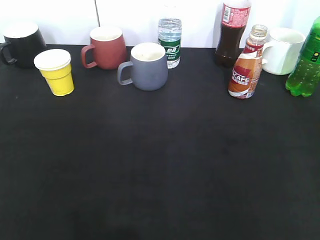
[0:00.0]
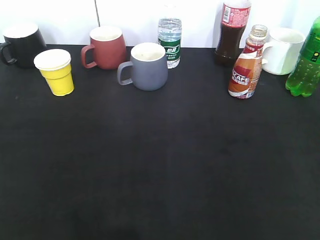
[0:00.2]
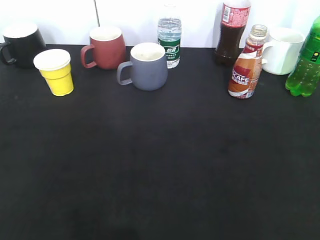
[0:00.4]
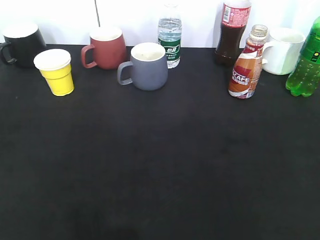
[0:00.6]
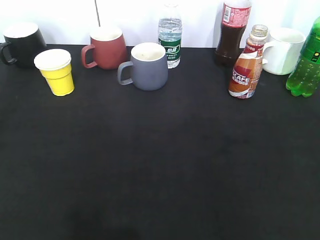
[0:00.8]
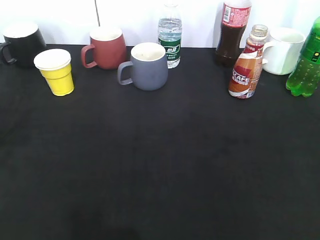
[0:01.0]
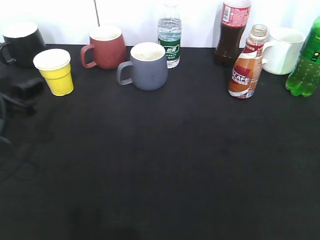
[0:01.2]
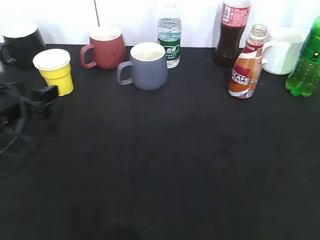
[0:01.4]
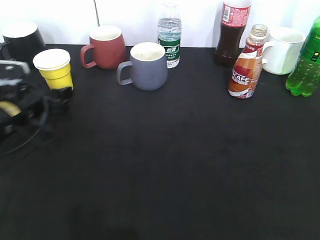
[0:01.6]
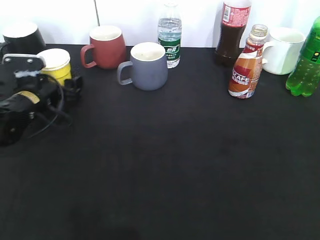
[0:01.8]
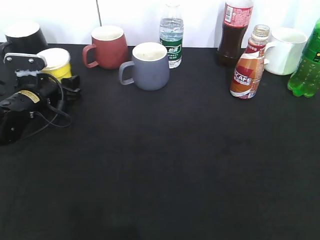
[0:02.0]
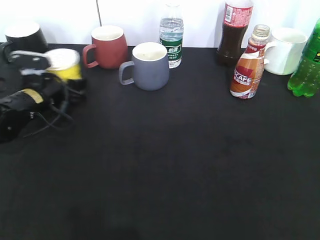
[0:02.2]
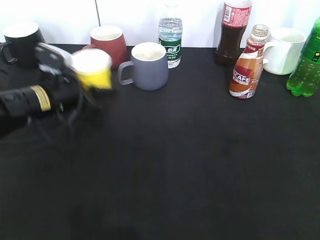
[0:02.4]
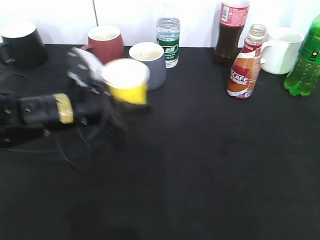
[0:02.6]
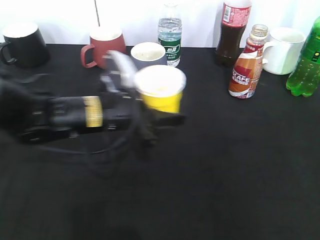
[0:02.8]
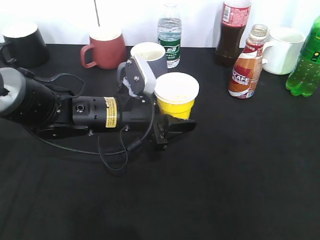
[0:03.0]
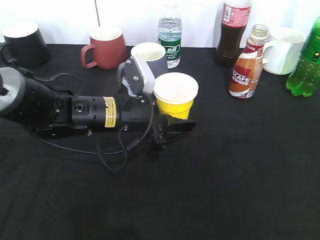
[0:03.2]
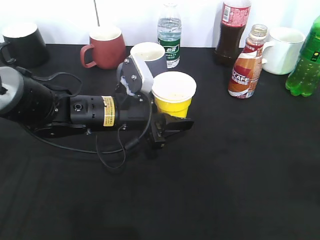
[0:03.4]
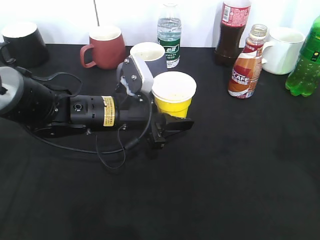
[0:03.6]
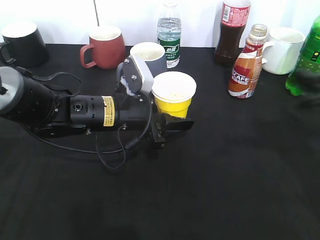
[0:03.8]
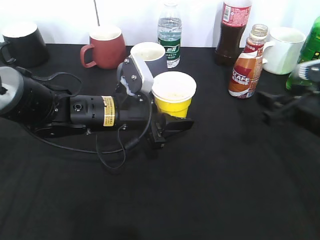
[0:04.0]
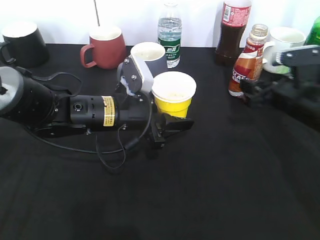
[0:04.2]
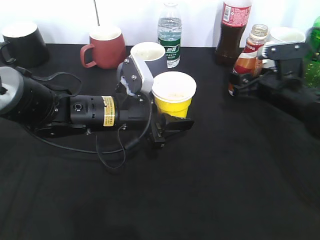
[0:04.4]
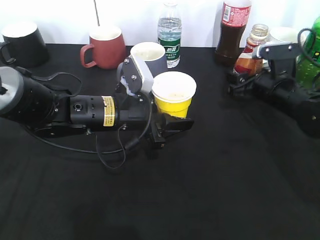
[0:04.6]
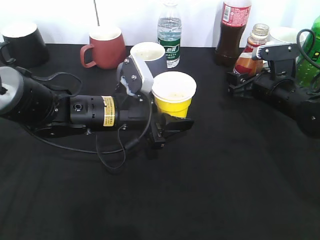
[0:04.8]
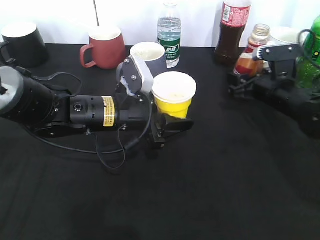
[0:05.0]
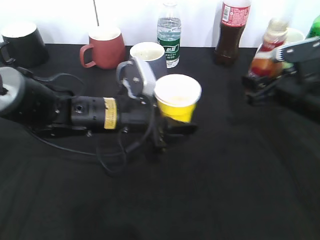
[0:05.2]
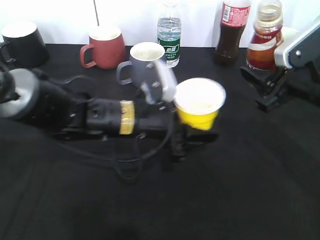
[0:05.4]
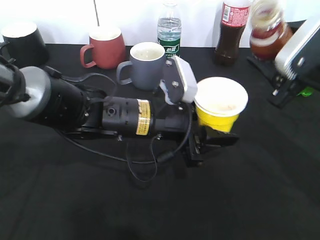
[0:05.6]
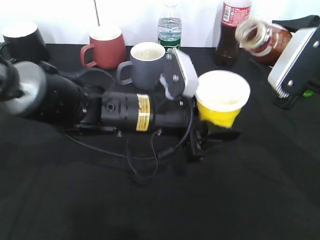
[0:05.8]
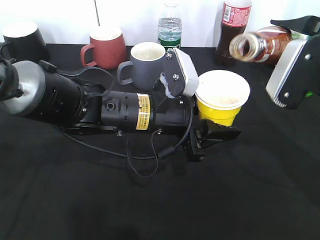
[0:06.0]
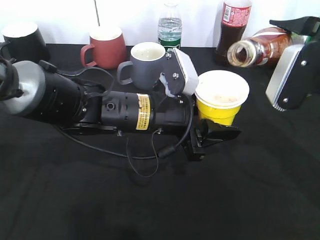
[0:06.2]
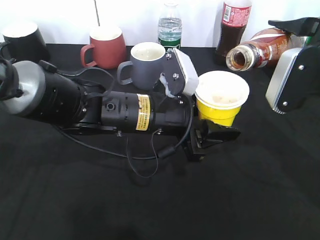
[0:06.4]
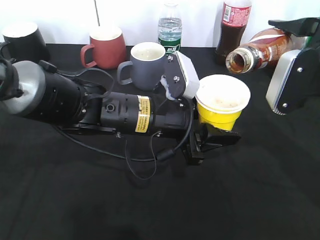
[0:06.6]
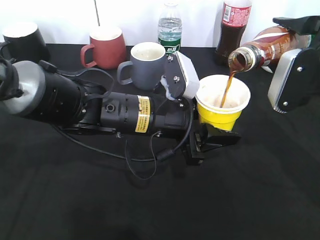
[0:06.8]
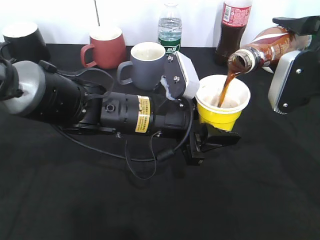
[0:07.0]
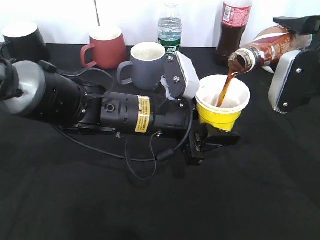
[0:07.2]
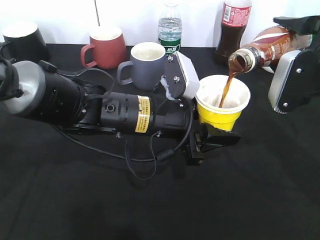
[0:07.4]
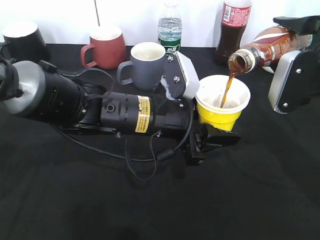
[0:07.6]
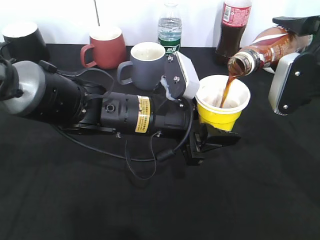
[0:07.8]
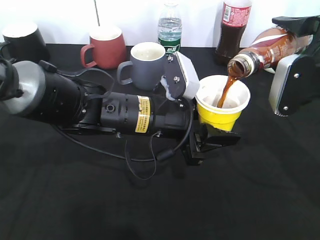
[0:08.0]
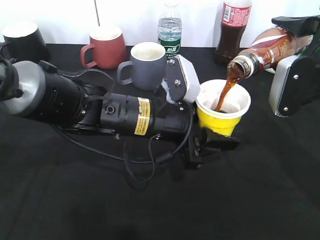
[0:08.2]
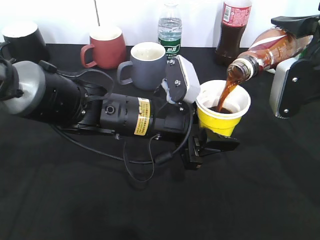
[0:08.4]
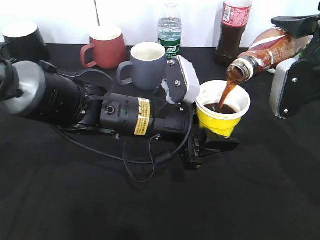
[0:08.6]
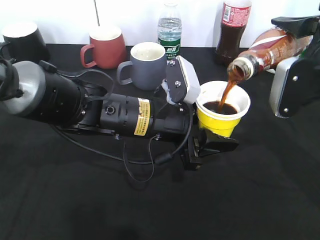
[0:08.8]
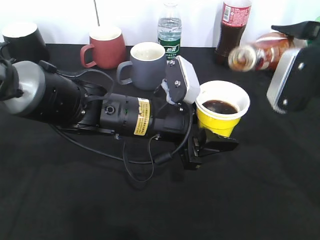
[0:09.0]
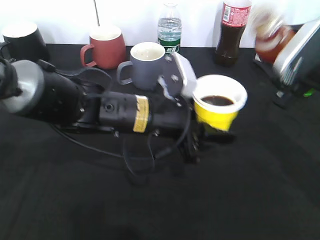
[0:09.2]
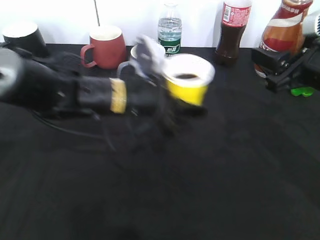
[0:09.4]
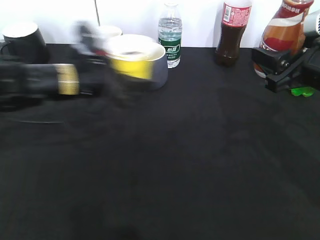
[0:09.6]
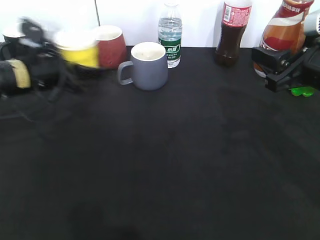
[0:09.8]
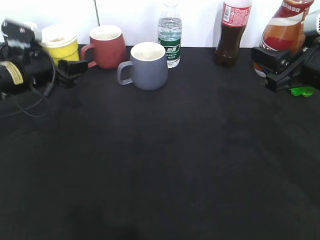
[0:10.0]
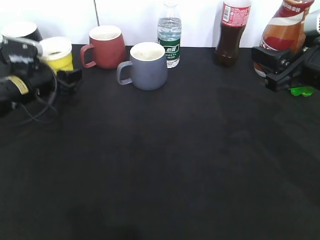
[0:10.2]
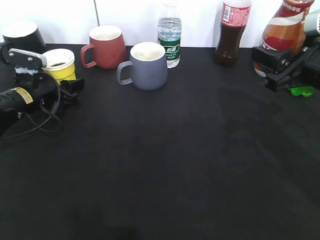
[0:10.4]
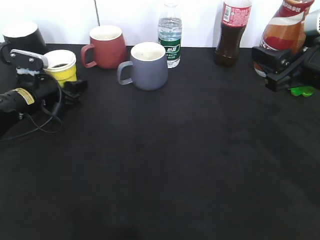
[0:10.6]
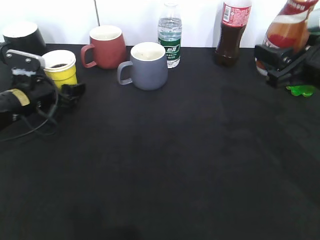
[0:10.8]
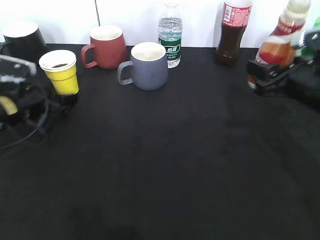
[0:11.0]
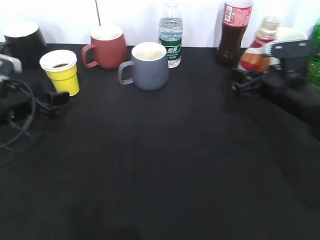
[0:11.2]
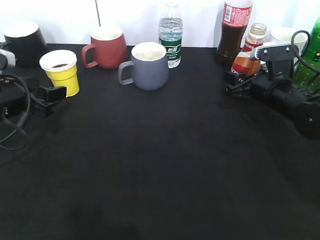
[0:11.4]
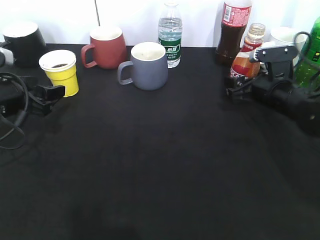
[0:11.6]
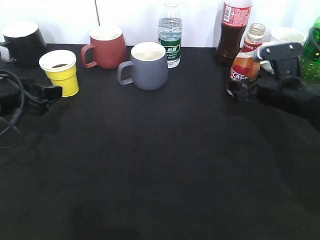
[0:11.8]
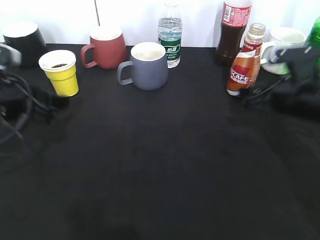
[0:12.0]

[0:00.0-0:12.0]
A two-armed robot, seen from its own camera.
Step, 1.2 to 2.0 s: Grasp the yellow paper cup with left gripper.
Step, 2.2 to 3.6 s: Lift the yellow paper cup with left gripper.
Step, 3.8 to 4.8 s: Grasp the bottle with coffee with right gripper.
Step, 5.0 to 9.0 s: Pour the coffee from bottle to cup with right gripper.
Step, 9.2 to 10.6 s: Place the yellow paper cup on the table with left gripper.
Step, 10.8 to 11.4 s: Place the coffee bottle on the table with right gripper.
0.0 to 1.6 s: The left gripper goes about 40 cm forward and downward, and opens.
1.6 to 3.0 s: The left gripper heads to the right, covering about 20 cm, and closes.
3.0 to 4.4 s: The right gripper travels forward and downward by about 40 cm.
4.4 to 6.0 s: The left gripper is displaced to the right by roughly 5 cm, while the right gripper moves upward and backward, about 15 cm.
6.0 to 7.6 s: The grippers move only a little.
7.6 to 9.0 s: The grippers move only a little.
9.0 to 10.4 s: The left gripper goes approximately 25 cm to the left and forward.
10.4 to 12.0 s: The left gripper moves backward and upward, roughly 15 cm, and opens; the right gripper travels downward by approximately 10 cm.

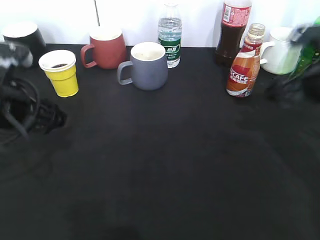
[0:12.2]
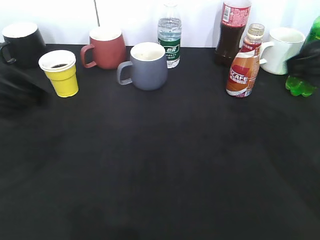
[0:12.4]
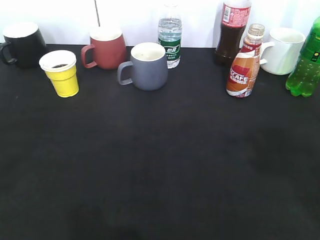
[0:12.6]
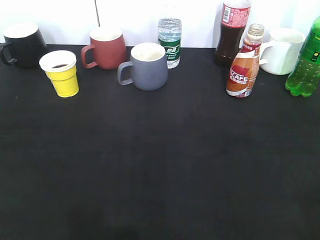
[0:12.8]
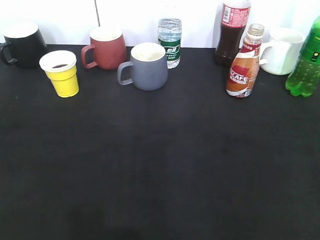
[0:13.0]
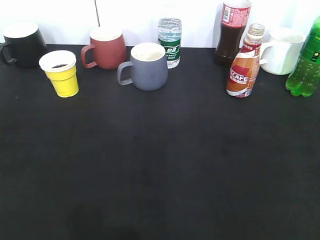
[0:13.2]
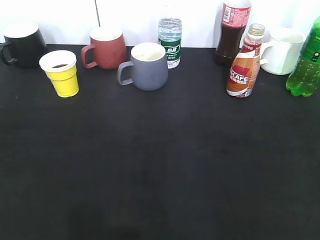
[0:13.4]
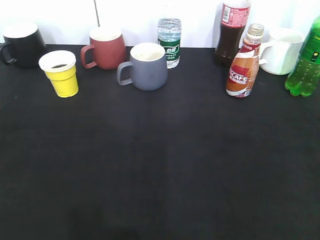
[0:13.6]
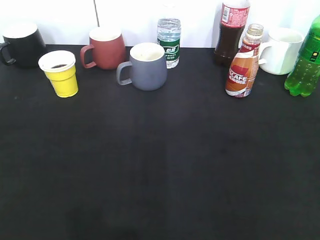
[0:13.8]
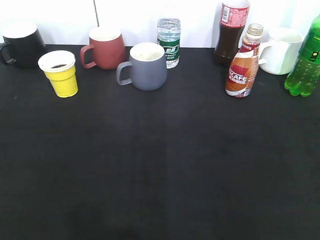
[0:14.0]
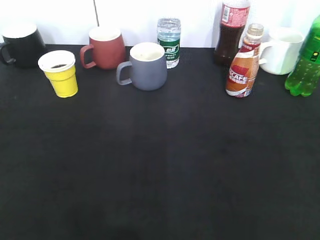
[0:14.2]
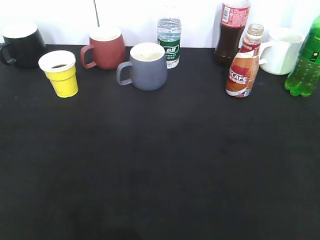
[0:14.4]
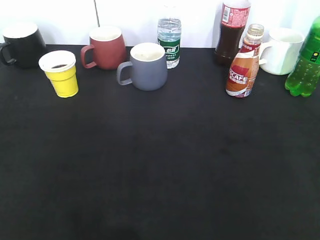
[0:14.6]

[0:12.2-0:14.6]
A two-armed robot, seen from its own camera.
12.2 to 13.4 s: The right gripper moves backward, about 30 cm. The left gripper shifts about 25 cm backward and to the left.

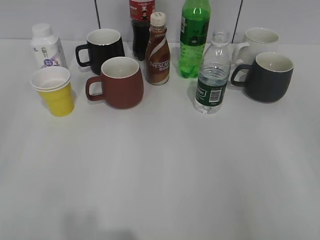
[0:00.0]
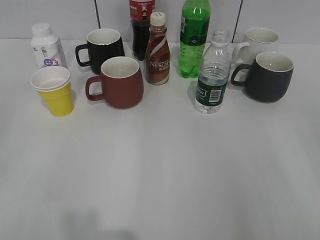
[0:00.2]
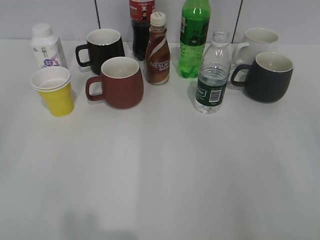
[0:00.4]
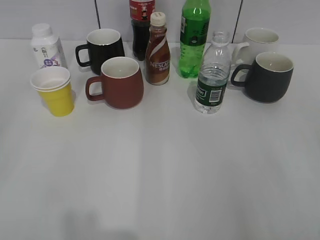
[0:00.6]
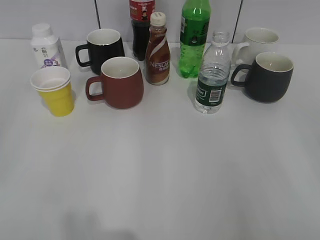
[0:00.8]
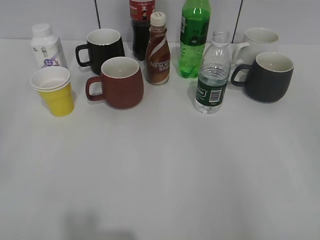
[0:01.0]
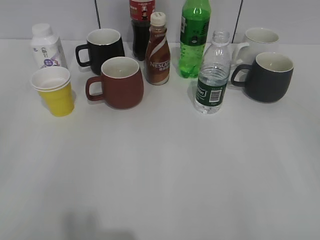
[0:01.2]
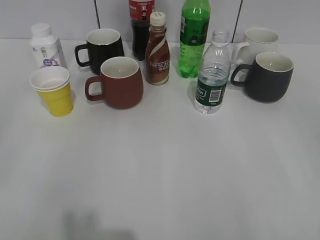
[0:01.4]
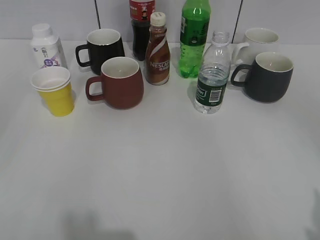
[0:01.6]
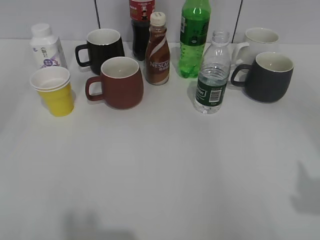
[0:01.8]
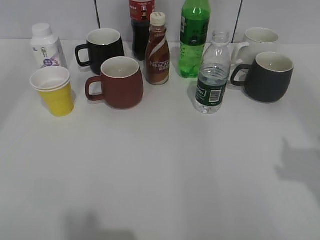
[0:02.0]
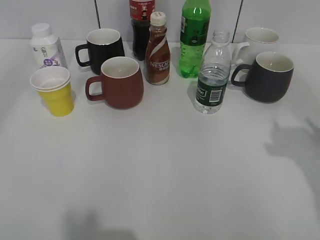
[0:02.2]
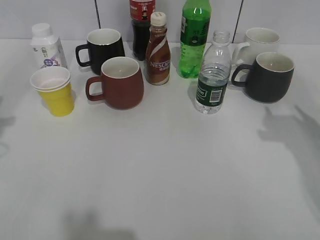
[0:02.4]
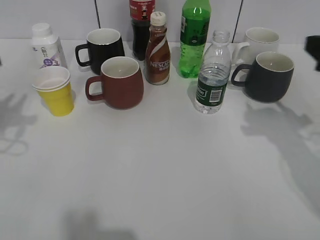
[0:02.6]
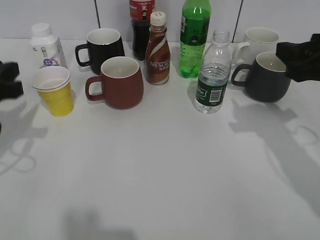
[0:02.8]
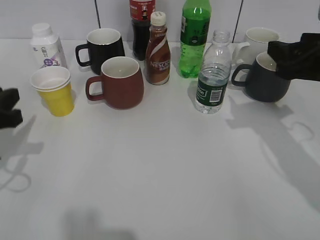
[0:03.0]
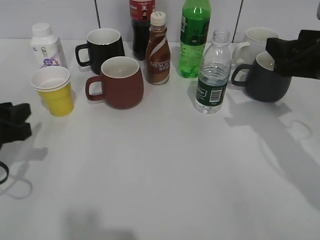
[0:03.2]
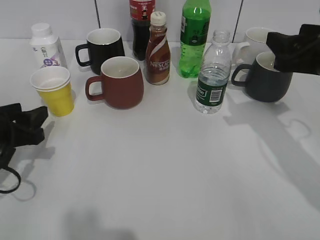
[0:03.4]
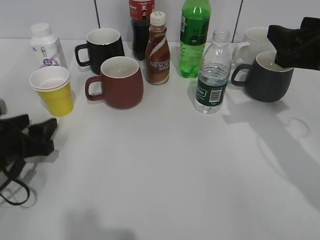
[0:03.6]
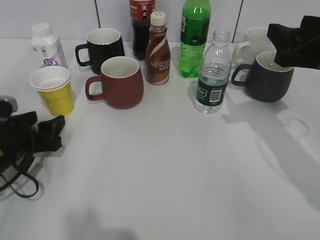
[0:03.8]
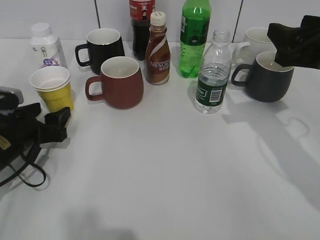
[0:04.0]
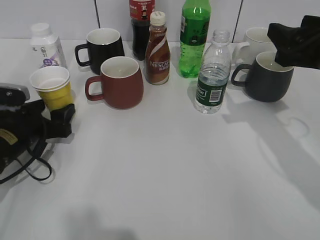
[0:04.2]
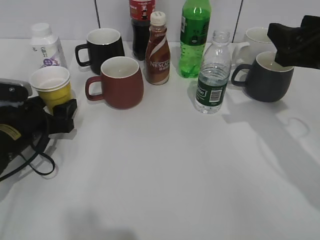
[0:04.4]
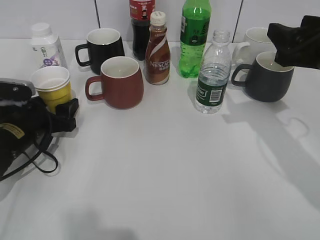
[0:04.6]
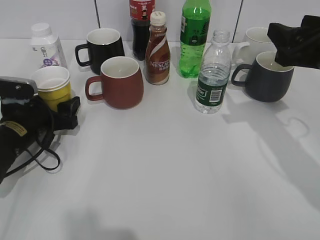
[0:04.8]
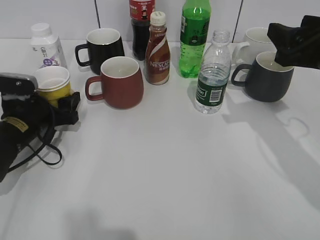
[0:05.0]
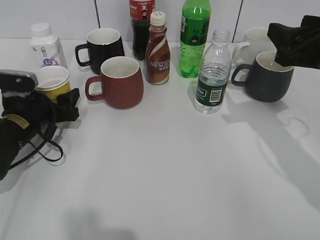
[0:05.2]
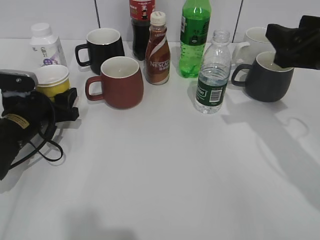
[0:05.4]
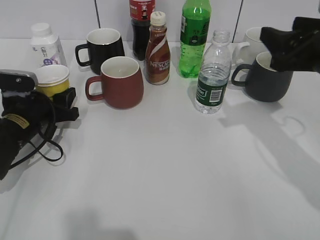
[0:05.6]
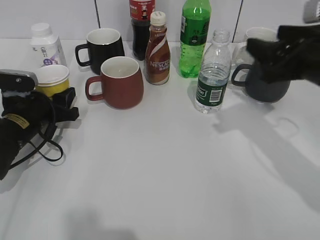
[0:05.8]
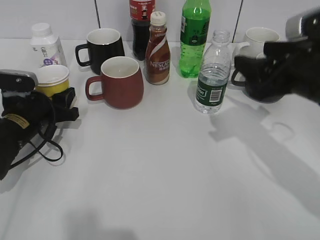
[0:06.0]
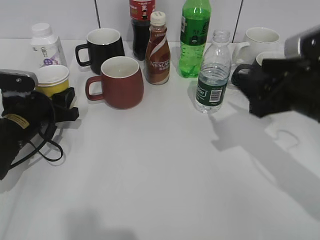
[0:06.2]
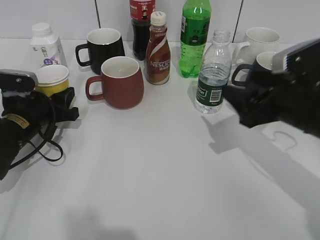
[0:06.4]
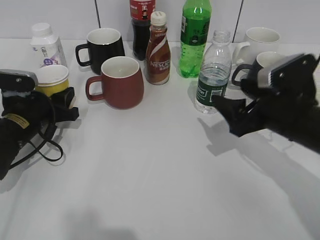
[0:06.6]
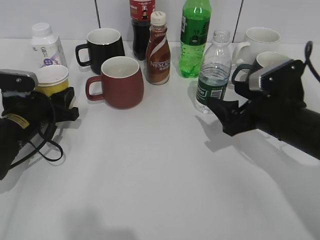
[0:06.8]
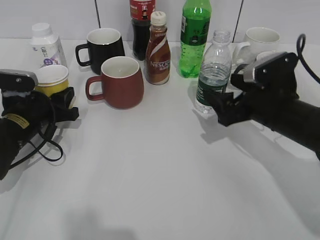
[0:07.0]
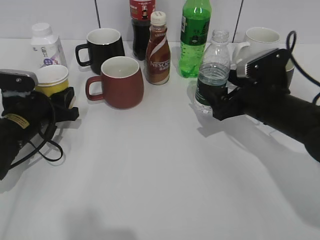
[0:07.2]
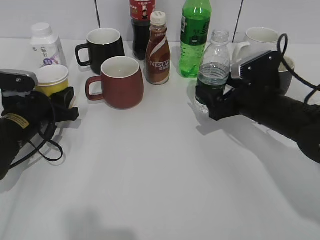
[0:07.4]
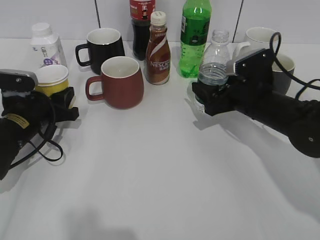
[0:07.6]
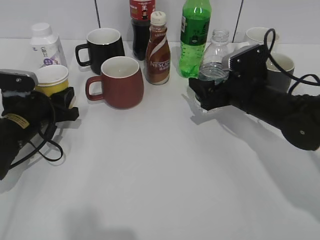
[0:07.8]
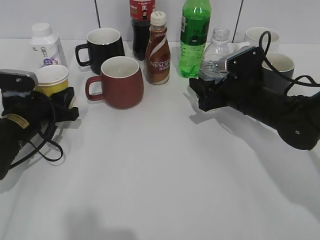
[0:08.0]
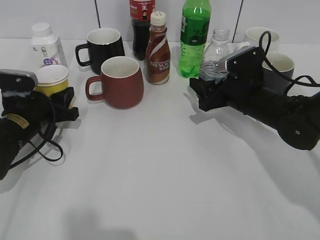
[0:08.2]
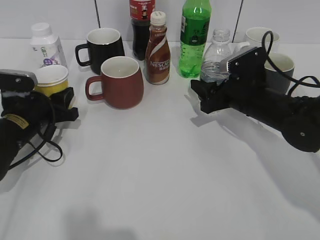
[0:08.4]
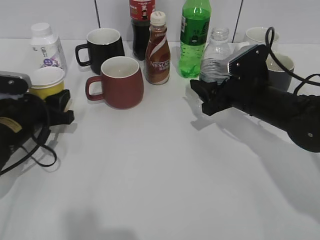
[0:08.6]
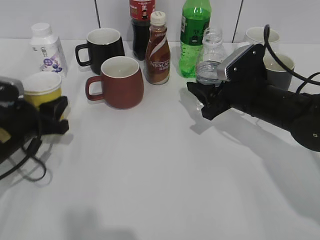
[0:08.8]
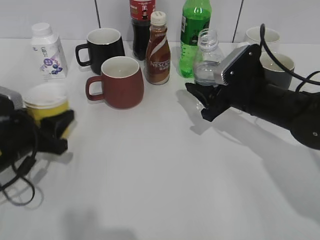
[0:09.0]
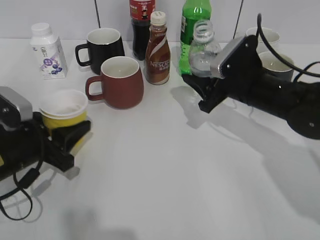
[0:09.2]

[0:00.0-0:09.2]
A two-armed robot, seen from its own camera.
Step, 1.4 to 5.0 s: Grasp the yellow paper cup with left gripper.
Step, 5.4 to 7.8 s: Grasp the bottle with water with right gripper.
1.6 to 3.0 s: The right gripper shifts some 25 cm forward, and closes up; the left gripper moves forward and downward, about 25 cm.
3.0 to 4.6 s: The left gripper goes some 10 cm downward and forward, and opens up.
4.6 to 6.2 s: The left gripper closes; the right gripper shifts by approximately 5 cm.
6.2 to 7.6 s: The right gripper is displaced forward and downward by approximately 10 cm, and opens its fingers.
7.6 to 9.2 s: The right gripper closes. Meanwhile the left gripper goes roughly 10 cm backward.
